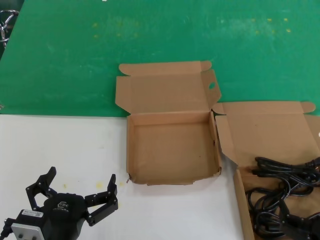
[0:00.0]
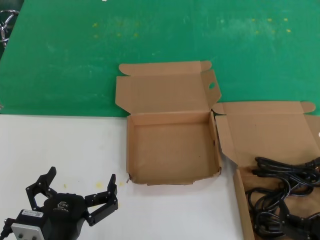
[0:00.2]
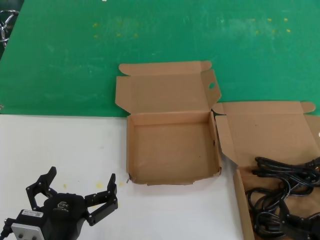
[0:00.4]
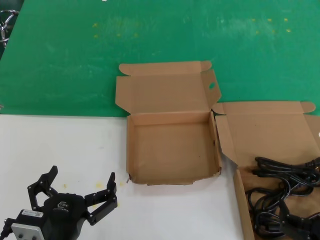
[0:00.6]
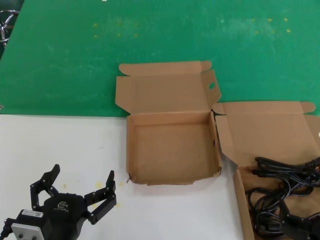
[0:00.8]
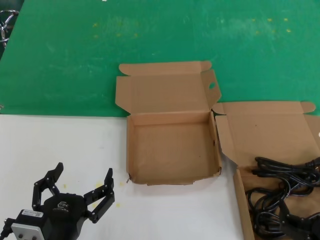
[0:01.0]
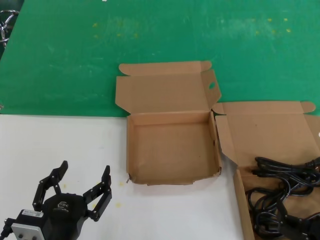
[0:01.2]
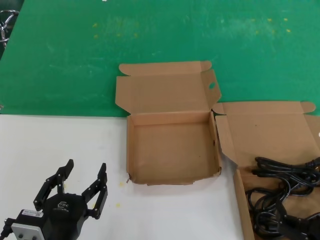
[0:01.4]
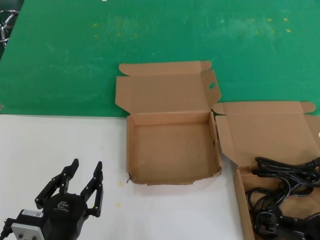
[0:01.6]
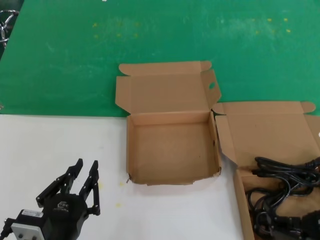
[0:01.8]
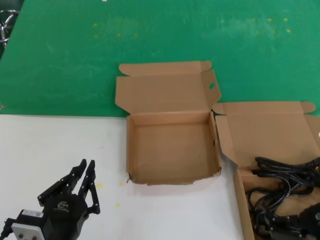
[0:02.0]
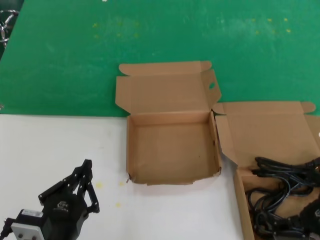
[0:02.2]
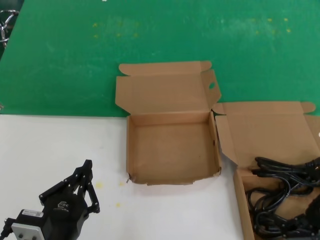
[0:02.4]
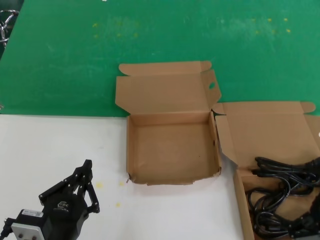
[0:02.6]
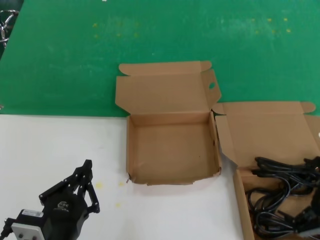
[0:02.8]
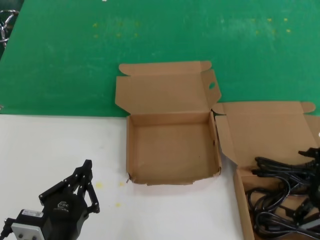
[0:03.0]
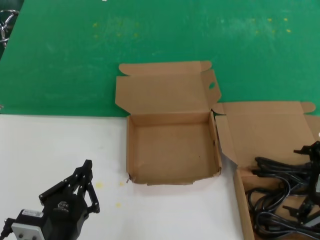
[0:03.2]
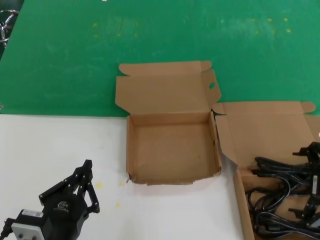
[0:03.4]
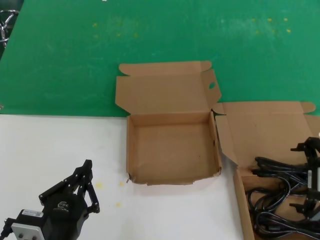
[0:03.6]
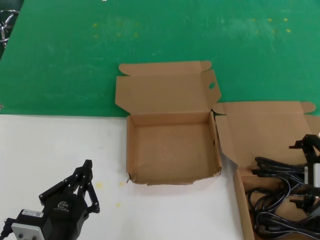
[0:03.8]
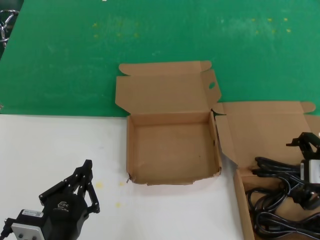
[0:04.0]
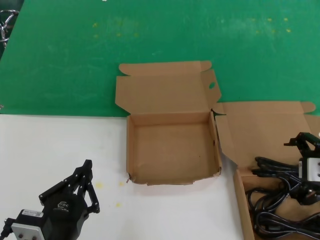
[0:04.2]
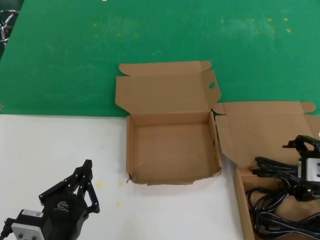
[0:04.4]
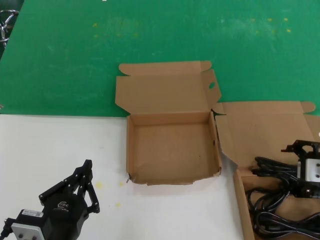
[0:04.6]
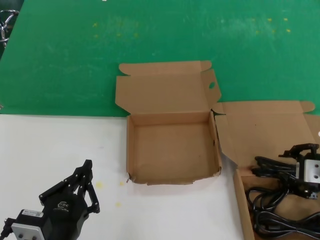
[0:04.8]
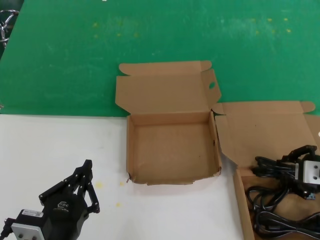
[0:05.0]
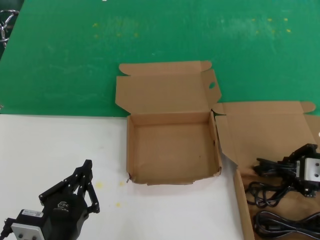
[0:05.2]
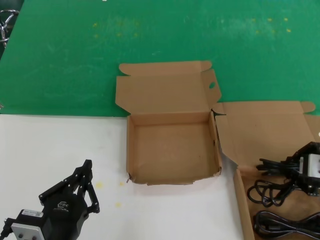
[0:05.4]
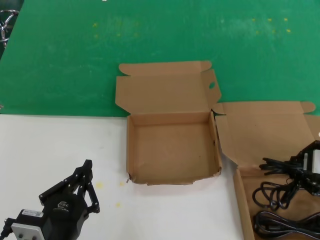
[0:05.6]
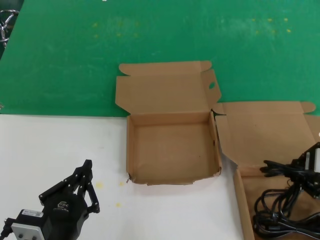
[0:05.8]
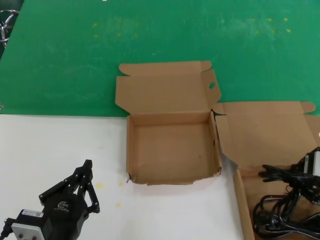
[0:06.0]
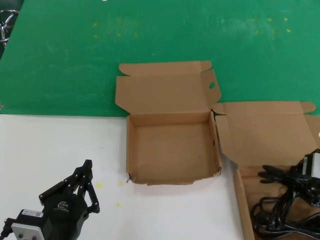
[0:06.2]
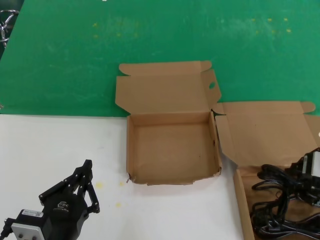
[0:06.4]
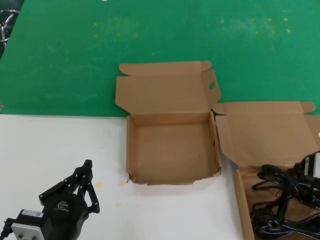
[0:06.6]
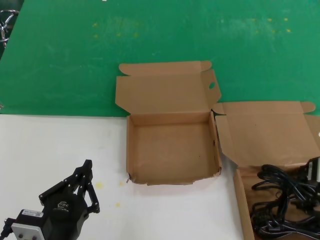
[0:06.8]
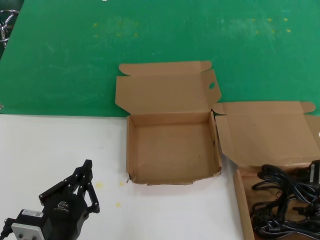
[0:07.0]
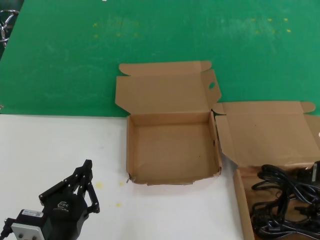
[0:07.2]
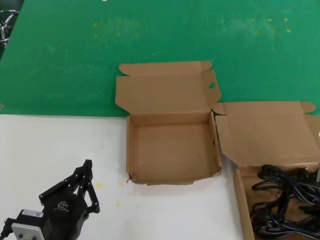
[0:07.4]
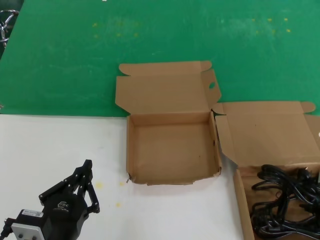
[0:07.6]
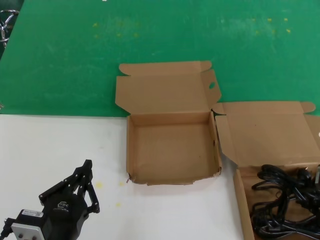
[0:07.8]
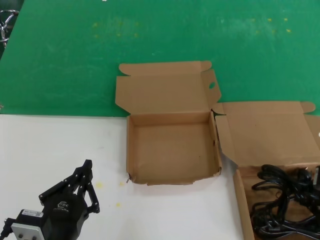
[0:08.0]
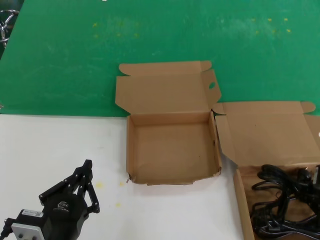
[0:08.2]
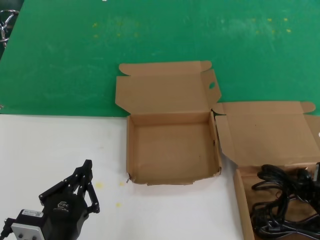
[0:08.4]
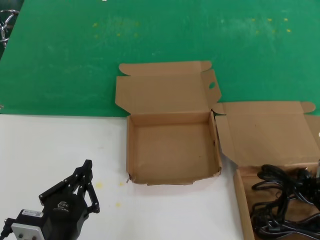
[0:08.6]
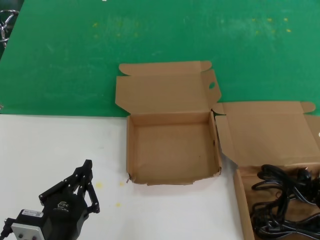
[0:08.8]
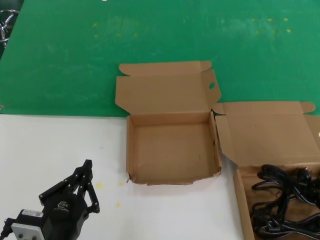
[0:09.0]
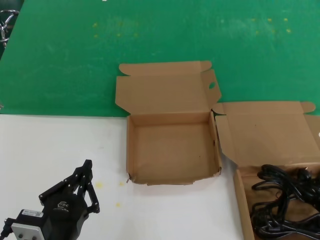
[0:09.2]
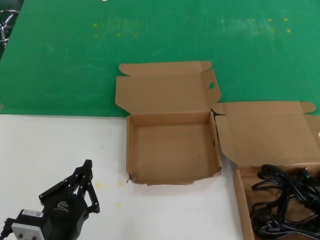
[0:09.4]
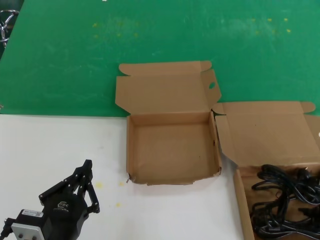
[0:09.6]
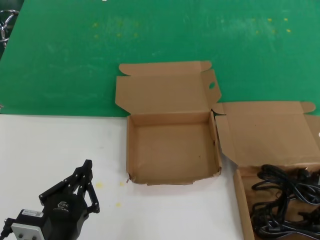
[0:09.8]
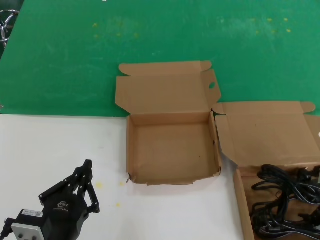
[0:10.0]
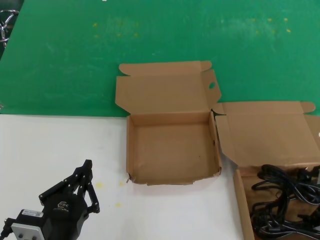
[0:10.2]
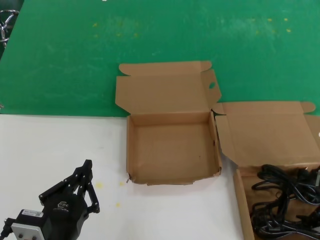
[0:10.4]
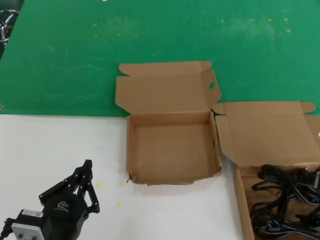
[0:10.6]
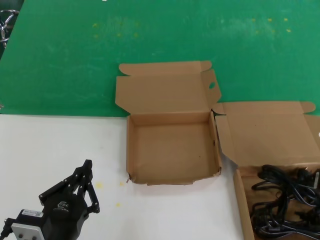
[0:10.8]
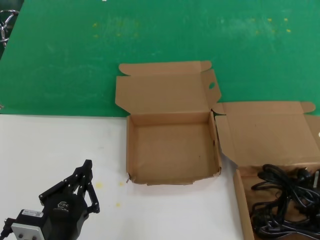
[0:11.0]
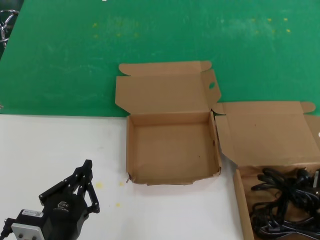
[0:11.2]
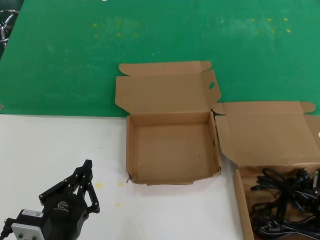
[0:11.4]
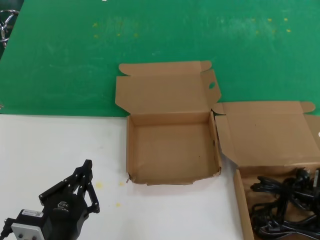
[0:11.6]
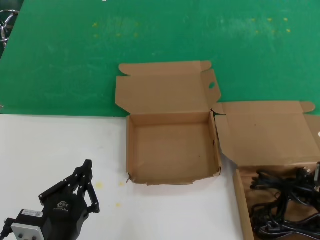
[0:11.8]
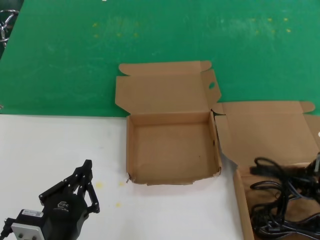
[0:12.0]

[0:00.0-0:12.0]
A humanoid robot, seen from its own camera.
Task of the whole recording: take the parts from the box containing them and put them into an empty box.
Step, 0:00.0 to 0:11.4: Grasp the data cable.
0:00.0 to 0:01.6: Both hands stay about where they are.
0:01.6 to 0:03.0: The right hand heads upward, forward and to the right, covering about 20 cm.
0:03.0 to 0:04.4: The right hand heads forward, covering some 10 cm.
0:04.4 to 0:06.0: The hands make only small movements.
0:06.0 to 0:07.6: There are only small adjustments of the hands.
0:10.4 to 0:12.0: The hands stay close to where they were, moving slightly.

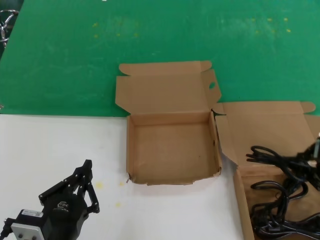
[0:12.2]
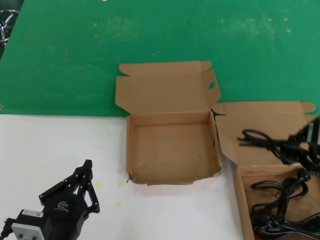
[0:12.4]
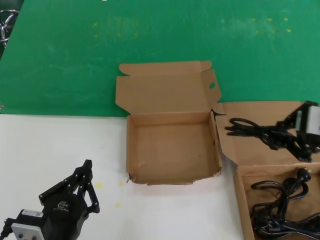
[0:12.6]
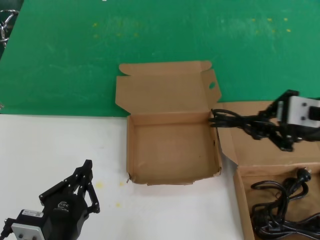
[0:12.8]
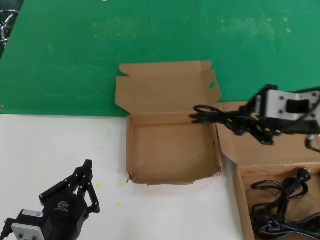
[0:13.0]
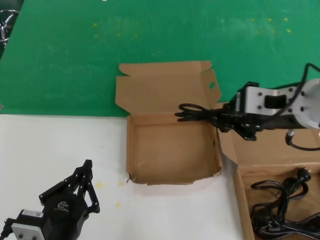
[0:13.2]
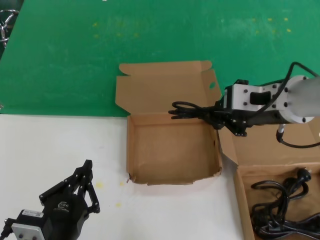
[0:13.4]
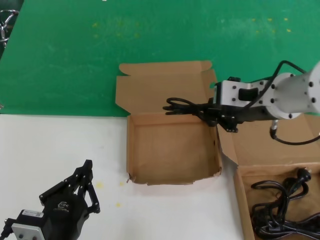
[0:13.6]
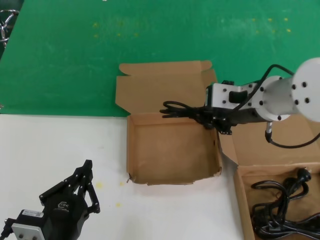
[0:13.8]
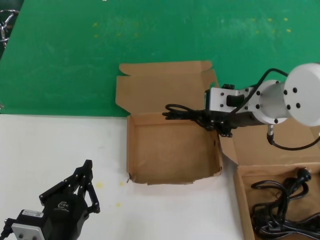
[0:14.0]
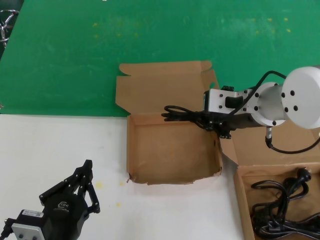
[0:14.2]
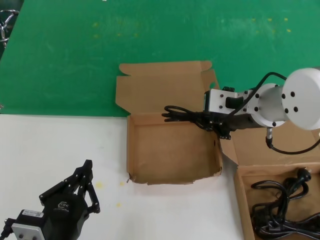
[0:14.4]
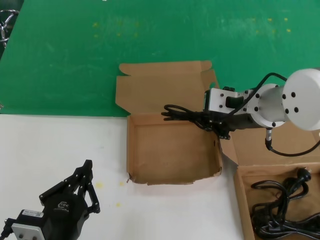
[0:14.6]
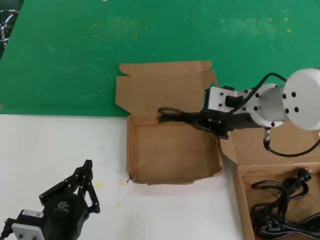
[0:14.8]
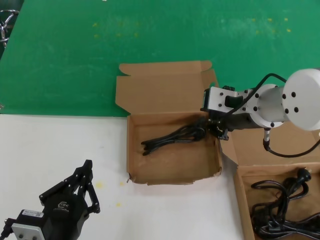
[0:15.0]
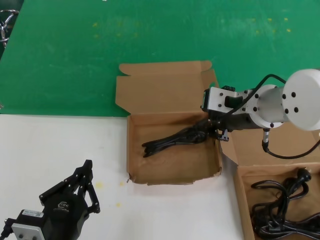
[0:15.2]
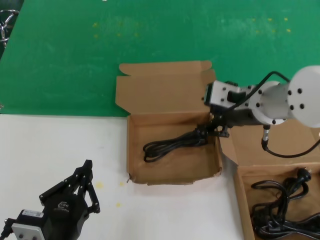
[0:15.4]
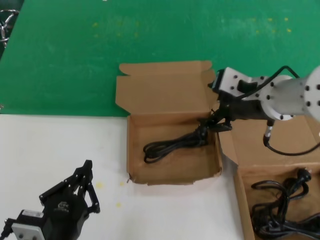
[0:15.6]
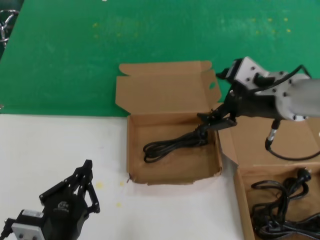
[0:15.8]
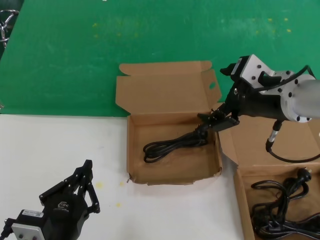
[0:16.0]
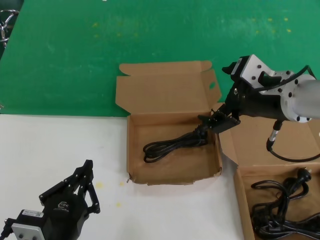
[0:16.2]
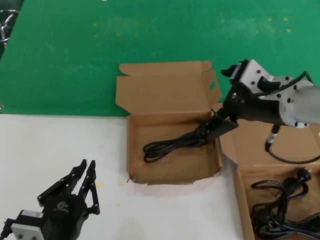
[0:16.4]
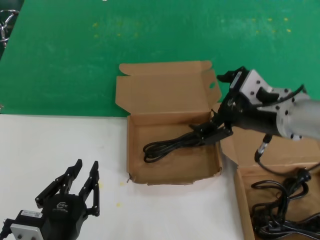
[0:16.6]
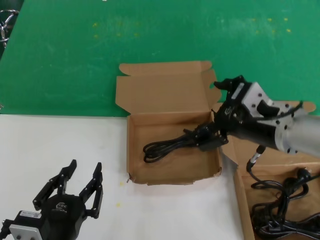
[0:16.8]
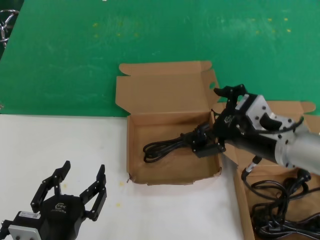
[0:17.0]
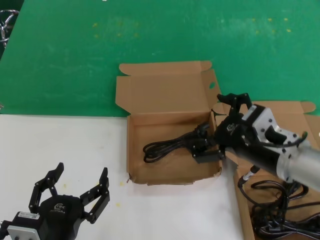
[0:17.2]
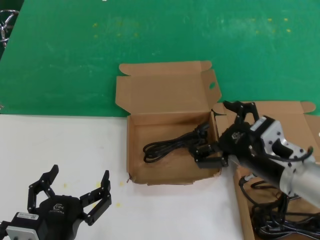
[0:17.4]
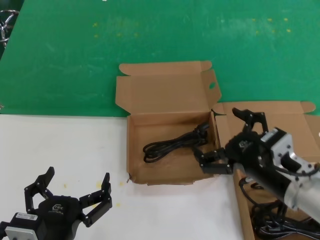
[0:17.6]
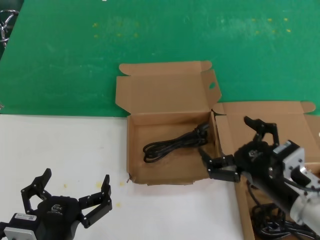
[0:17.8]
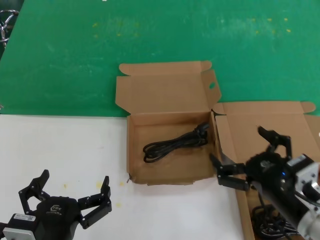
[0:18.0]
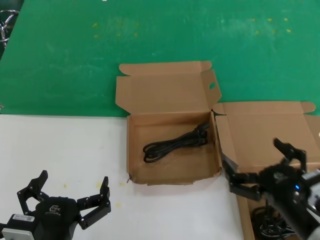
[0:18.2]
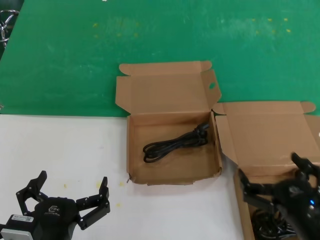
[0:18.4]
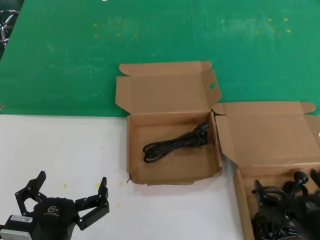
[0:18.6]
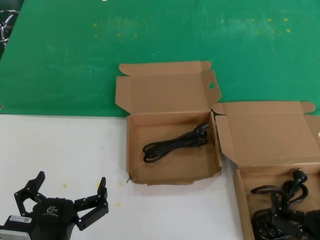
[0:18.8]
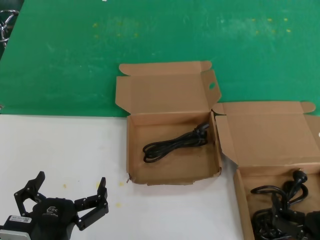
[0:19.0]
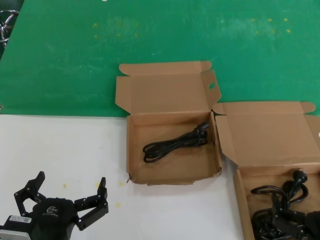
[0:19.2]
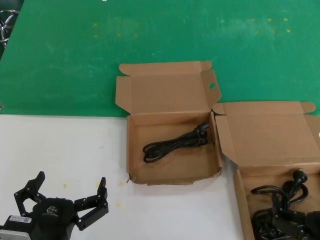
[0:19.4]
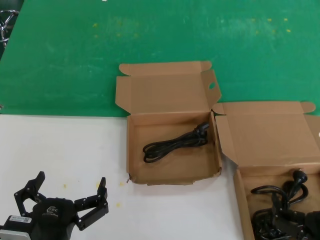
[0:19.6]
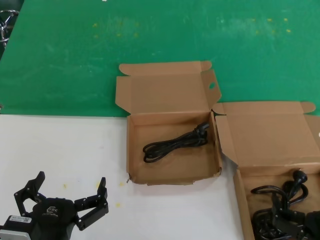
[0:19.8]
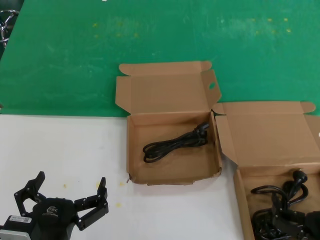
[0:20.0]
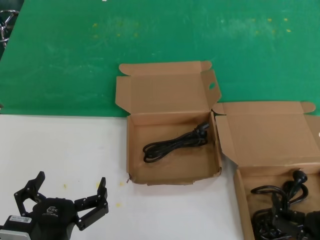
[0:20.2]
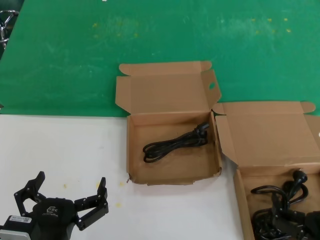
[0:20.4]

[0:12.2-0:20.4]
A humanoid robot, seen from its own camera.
Task of the whole recording: take the parts from the box containing them and put them into an empty box.
Step, 0:12.2 to 0:15.6: Place the data cable in the another box.
0:12.2 to 0:13.8: The right hand moves to the left and forward, roughly 20 cm.
0:13.8 to 0:15.4: There are only small adjustments of the hands.
0:15.4 to 0:17.2: The right hand travels downward and backward by about 10 cm.
0:17.2 to 0:18.8: The right hand shifts some 20 cm downward and backward.
0:18.8 to 0:20.4: Neither hand changes place.

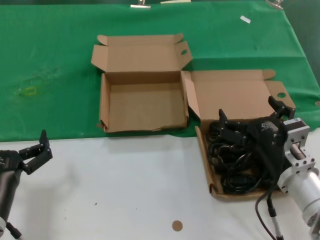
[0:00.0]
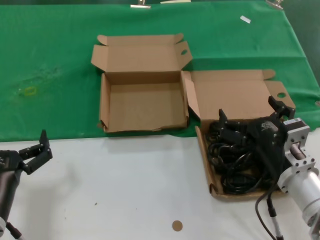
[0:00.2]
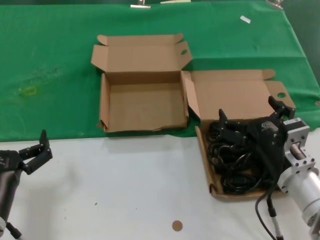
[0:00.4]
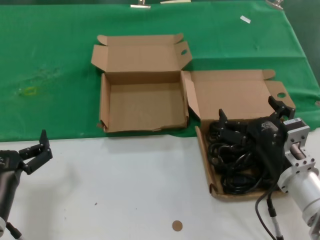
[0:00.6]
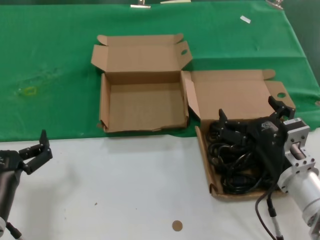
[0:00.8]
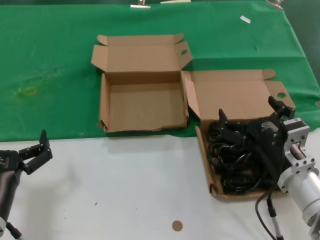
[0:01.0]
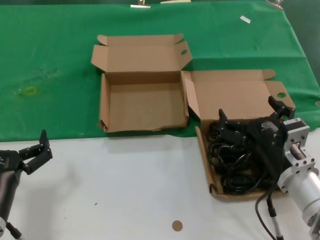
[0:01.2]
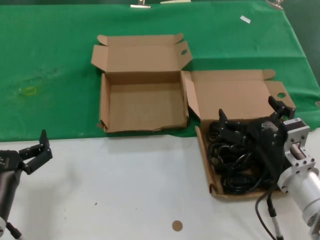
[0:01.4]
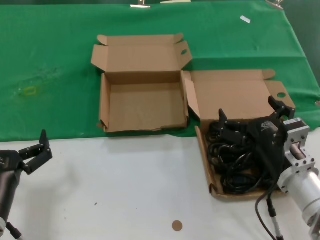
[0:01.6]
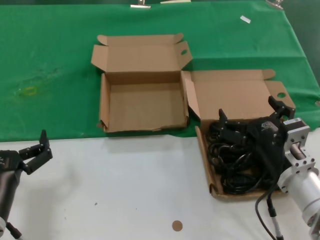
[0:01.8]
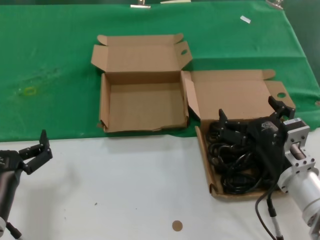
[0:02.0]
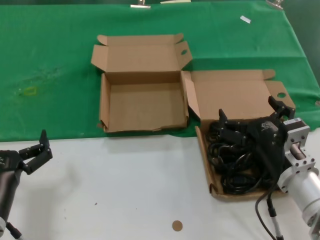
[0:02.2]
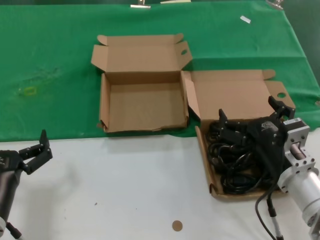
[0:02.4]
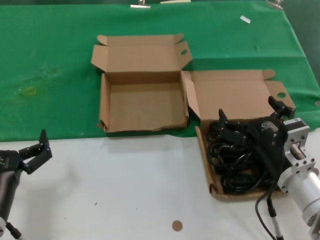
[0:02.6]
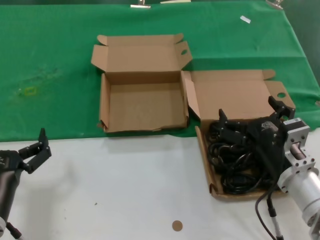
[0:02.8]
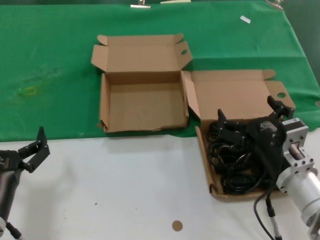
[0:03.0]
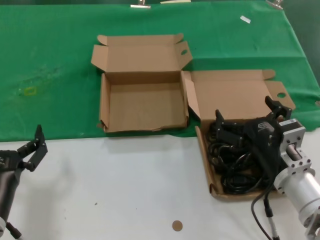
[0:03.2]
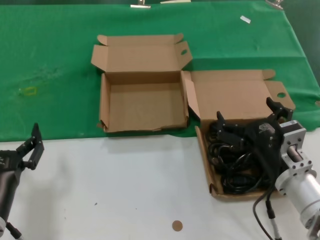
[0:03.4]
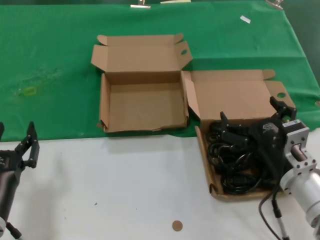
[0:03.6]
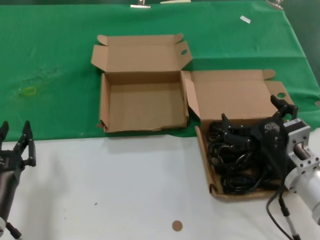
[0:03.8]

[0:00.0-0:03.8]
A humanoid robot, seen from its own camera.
Task of the whole recording: take the parts from the box containing them and put them into an empty box.
0:00.0 to 0:02.6: Both hands stay about where they are.
0:02.6 to 0:03.8: There are only small adjustments of the hands.
